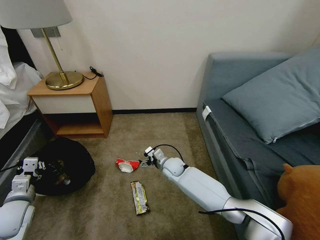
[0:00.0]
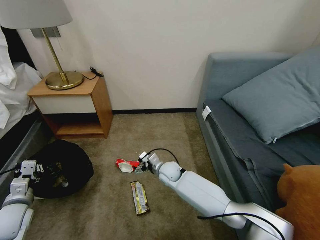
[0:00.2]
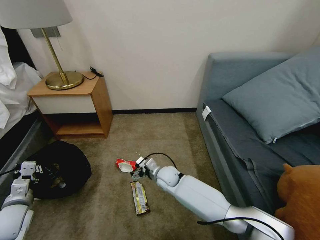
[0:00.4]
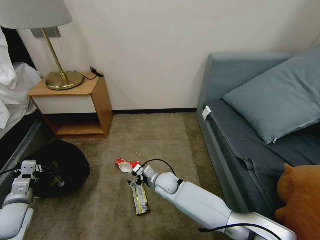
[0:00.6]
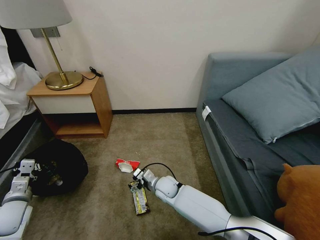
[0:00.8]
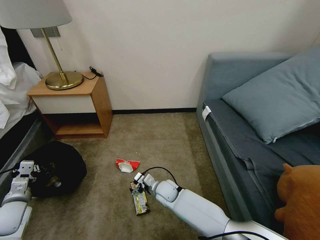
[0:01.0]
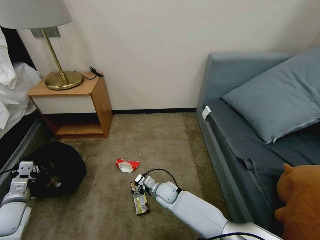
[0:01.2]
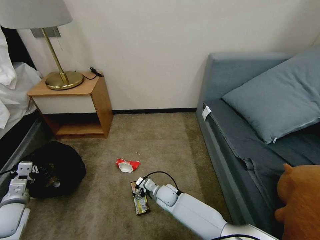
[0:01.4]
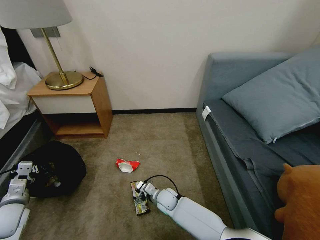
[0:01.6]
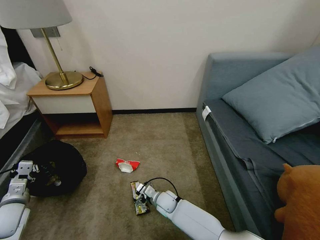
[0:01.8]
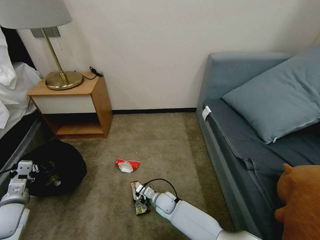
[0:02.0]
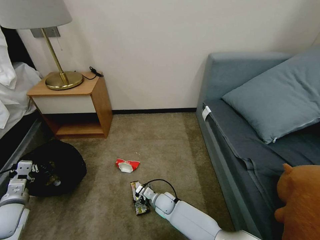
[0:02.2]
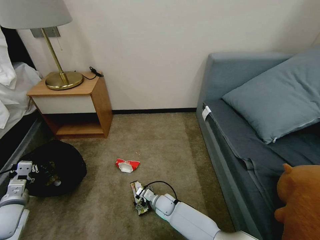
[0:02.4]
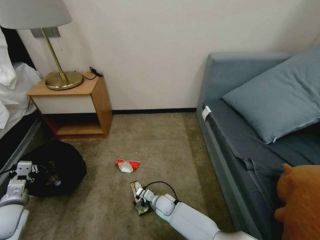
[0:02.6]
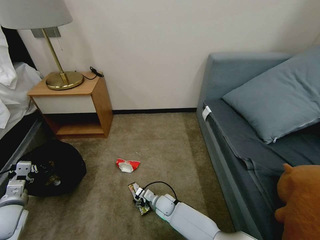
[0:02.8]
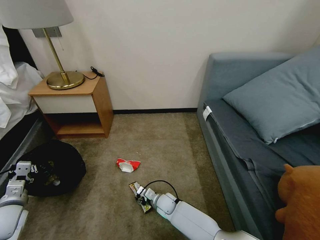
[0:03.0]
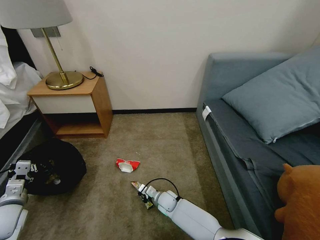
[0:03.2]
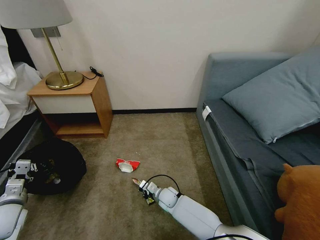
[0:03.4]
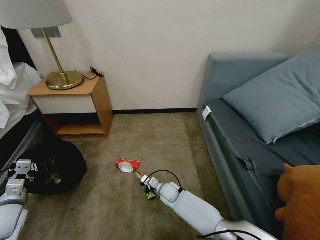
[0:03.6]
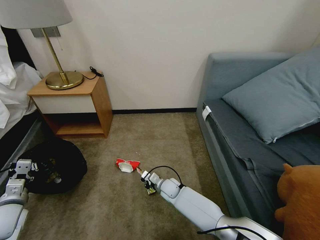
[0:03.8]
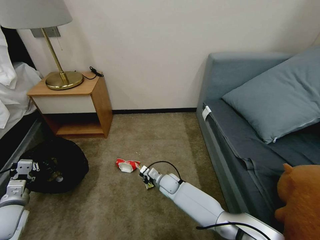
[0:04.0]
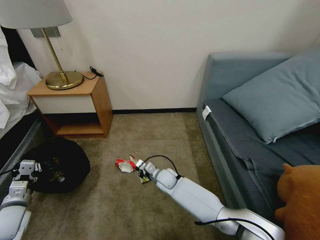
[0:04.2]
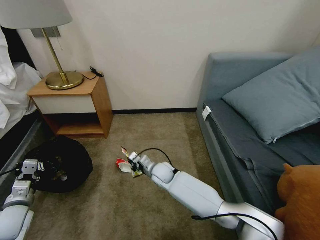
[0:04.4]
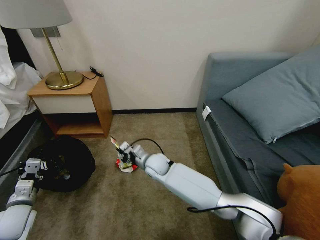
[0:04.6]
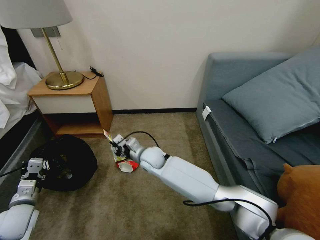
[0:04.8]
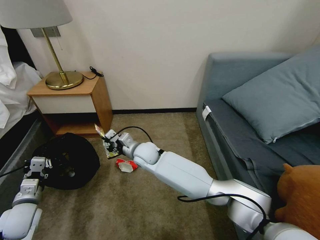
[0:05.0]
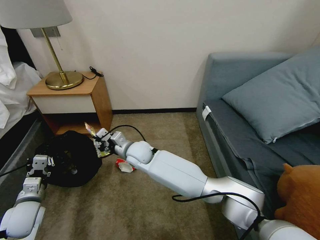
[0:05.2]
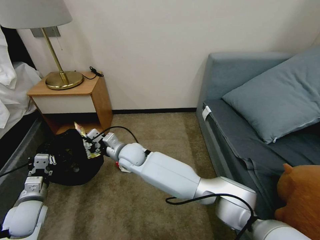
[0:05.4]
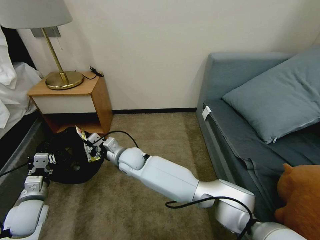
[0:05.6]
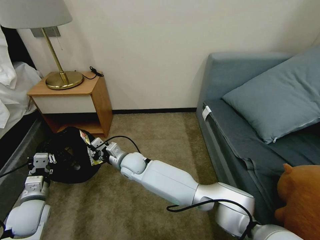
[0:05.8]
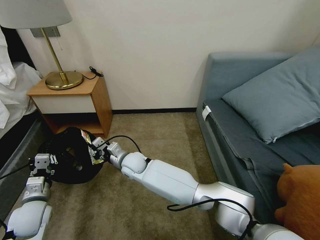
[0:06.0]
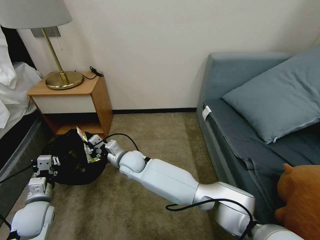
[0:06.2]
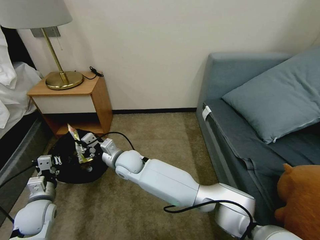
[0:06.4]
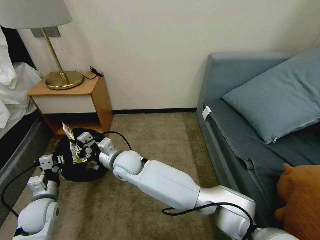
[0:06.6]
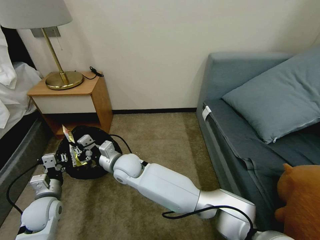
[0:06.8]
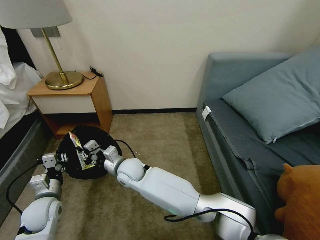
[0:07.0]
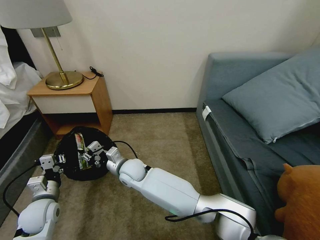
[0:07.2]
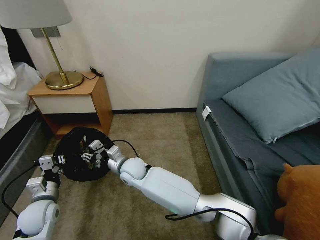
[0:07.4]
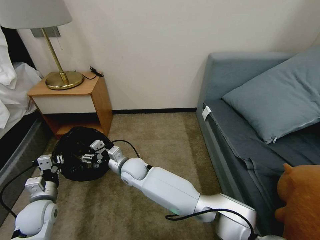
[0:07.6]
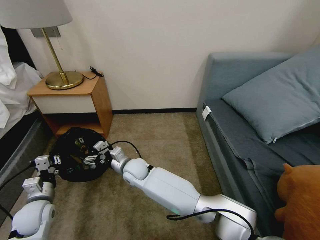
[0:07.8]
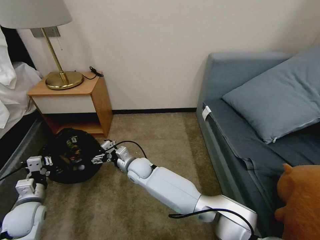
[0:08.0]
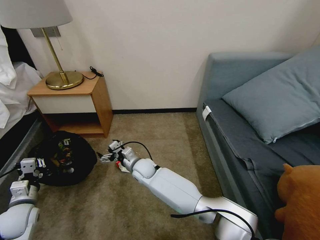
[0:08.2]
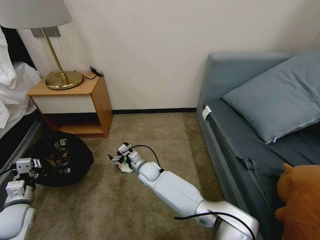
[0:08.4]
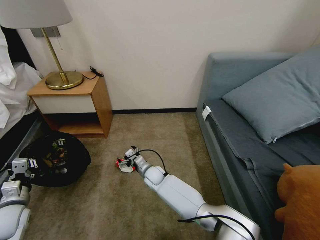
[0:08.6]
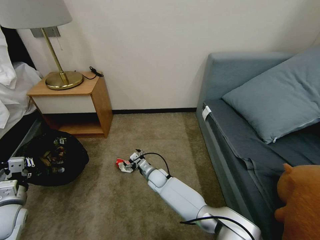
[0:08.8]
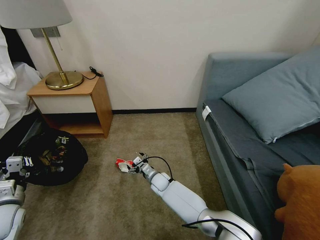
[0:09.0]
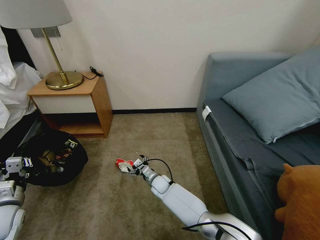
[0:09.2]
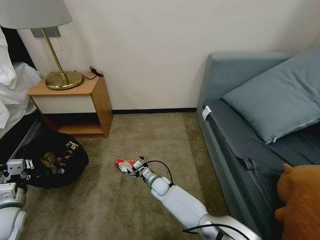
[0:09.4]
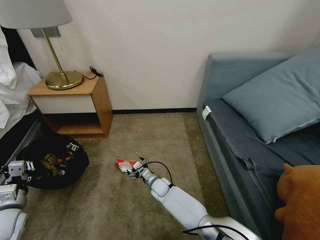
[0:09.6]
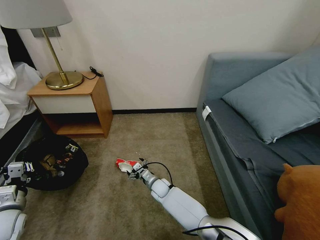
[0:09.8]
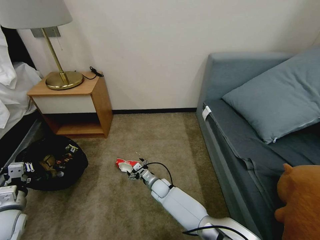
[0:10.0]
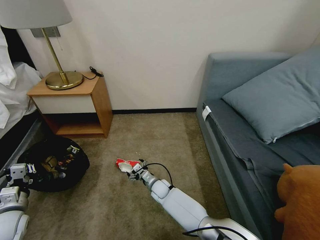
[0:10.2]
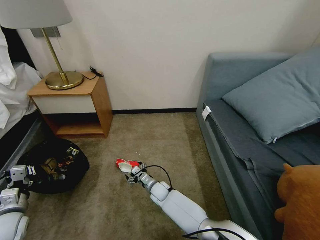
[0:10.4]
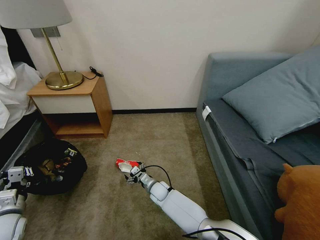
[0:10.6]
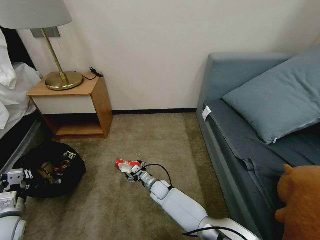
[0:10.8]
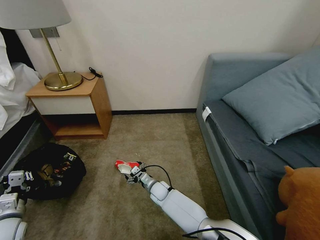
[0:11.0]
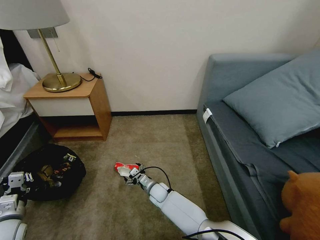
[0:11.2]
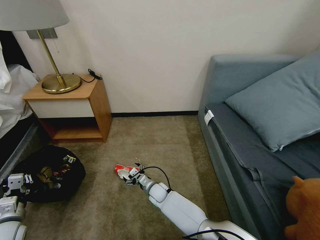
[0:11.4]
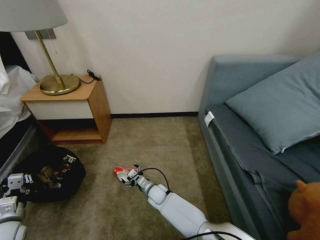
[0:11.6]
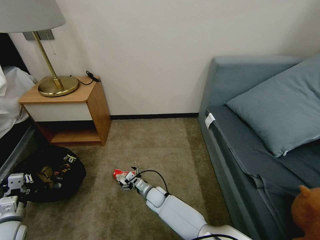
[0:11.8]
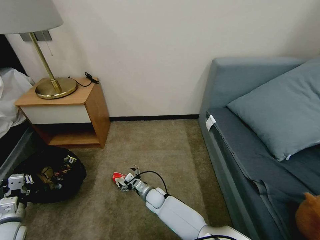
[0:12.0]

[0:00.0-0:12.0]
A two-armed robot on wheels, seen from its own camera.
Task of the whole recording: Pick up the trash bin, then pick up the garbage on the floor and place it into the trash bin.
0:00.0 to 0:01.6: The right gripper moves backward and downward, approximately 15 cm.
0:01.6 to 0:03.0: The right gripper closes.
0:03.0 to 0:04.4: The right gripper moves upward and forward, about 15 cm, and closes its fingers.
0:04.4 to 0:06.0: The right gripper is displaced to the left and upward by approximately 15 cm. The left gripper goes roughly 5 cm to the right.
0:06.0 to 0:07.6: The right gripper opens up.
0:07.6 to 0:09.0: The right gripper moves downward and to the right, roughly 20 cm. Meanwhile the left gripper moves to the left, roughly 10 cm.
0:09.0 to 0:10.4: The grippers move only a little.

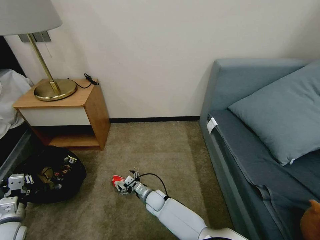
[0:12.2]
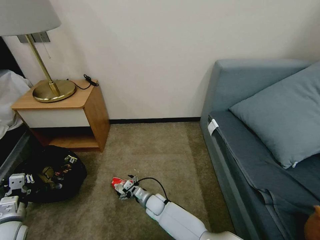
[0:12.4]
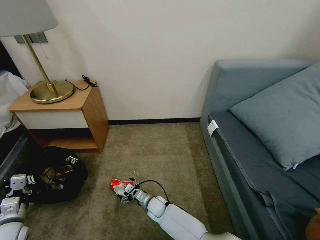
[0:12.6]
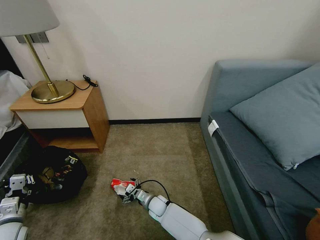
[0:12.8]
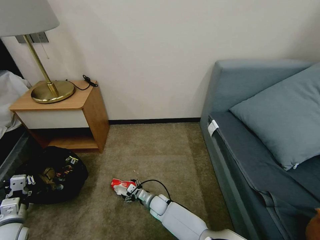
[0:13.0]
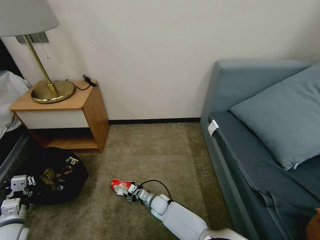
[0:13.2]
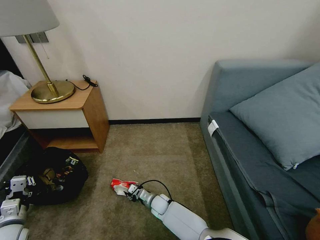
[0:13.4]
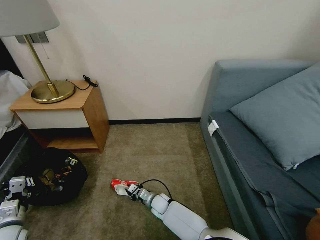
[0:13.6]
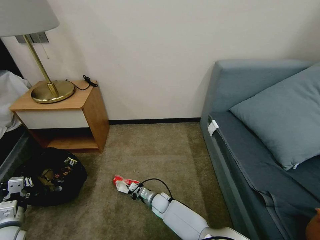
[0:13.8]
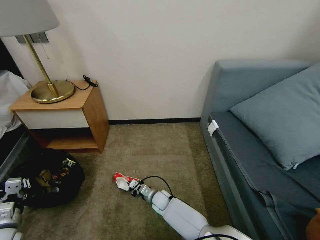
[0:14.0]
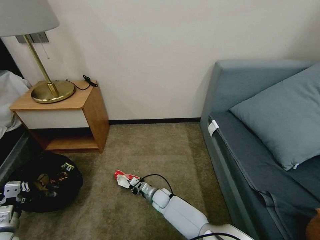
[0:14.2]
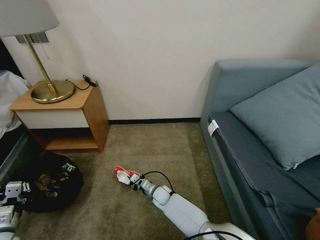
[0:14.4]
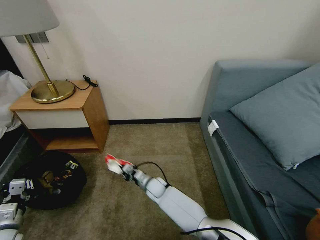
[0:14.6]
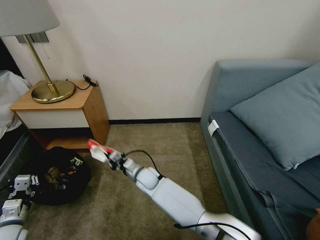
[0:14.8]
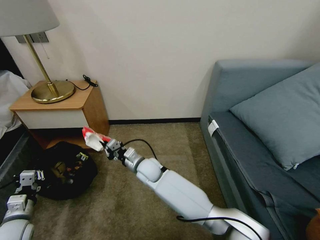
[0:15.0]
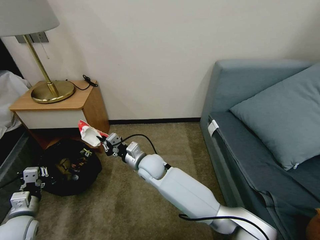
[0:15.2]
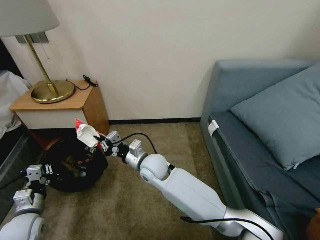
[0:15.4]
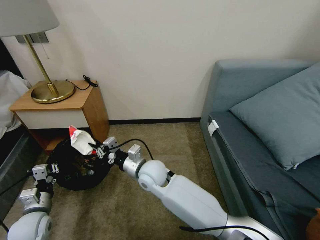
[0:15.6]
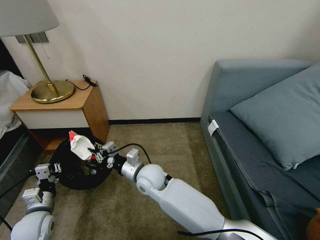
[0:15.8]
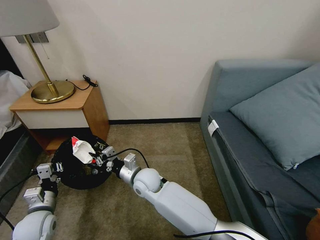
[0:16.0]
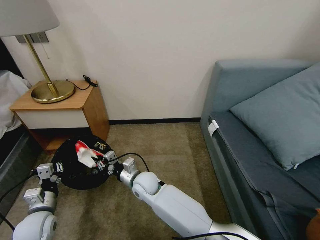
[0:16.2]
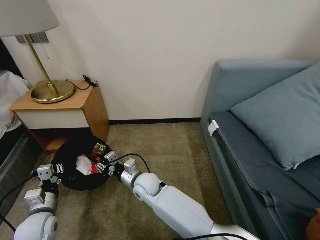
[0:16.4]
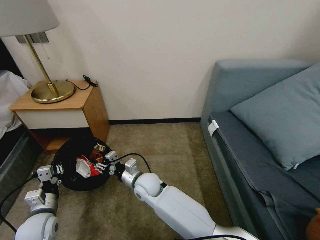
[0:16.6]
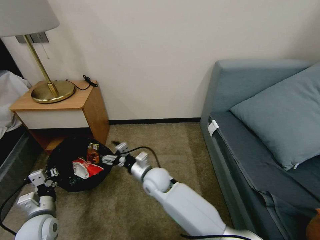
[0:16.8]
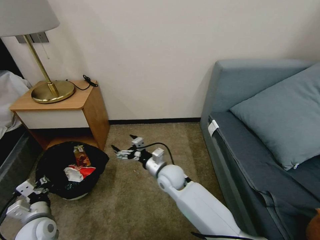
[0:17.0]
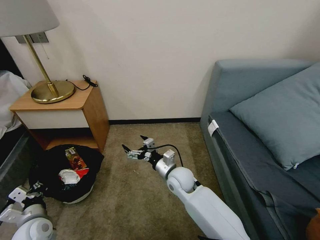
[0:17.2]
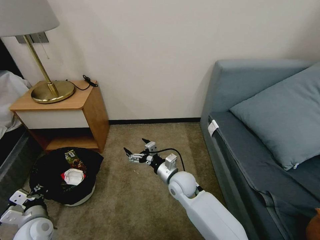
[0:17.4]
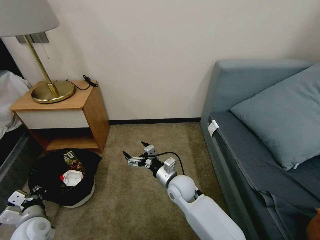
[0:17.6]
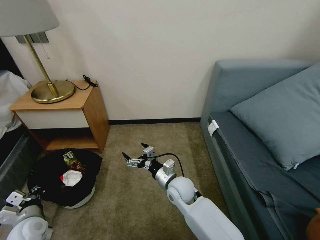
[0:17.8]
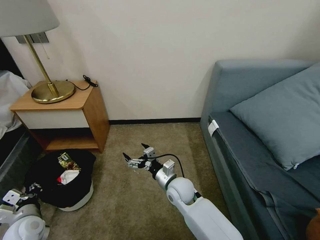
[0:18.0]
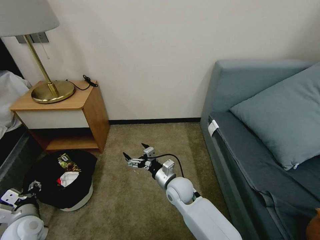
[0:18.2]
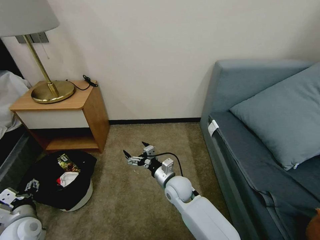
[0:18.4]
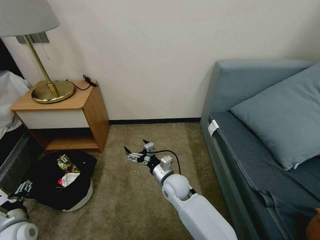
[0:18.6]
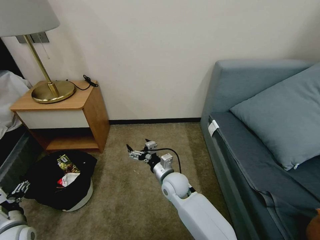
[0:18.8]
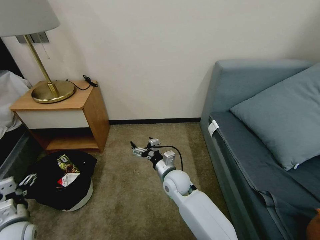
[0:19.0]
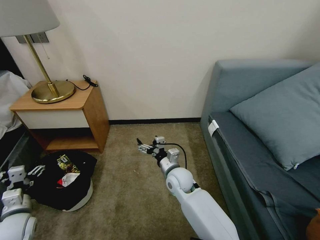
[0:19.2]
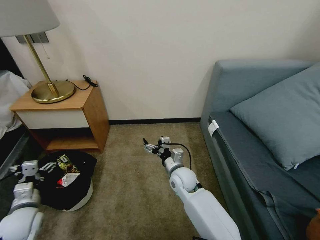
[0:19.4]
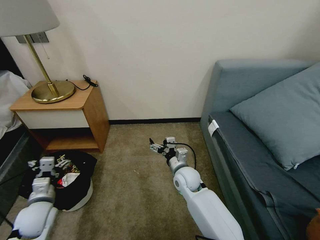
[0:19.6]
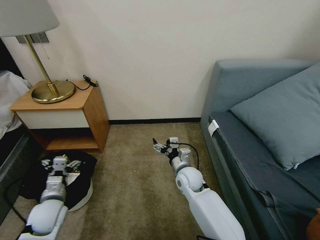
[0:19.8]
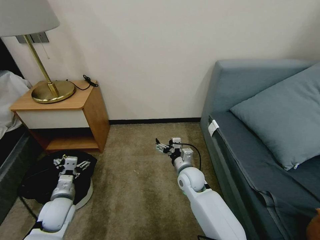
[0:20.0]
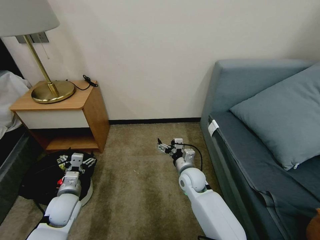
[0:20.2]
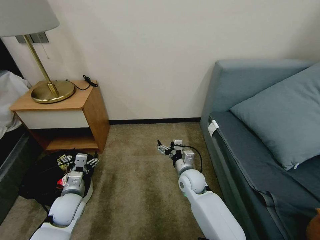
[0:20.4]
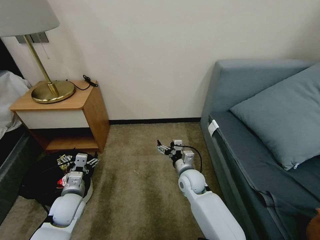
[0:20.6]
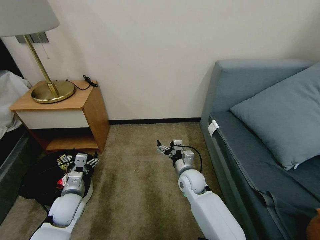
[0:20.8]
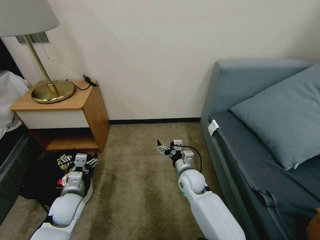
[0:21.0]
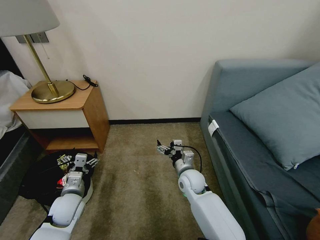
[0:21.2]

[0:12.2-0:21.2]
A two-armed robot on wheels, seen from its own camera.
Task of the whole recording: Pick up the trash bin, then pick up the garbage on the floor and place it into the trash bin.
0:12.2 to 0:13.8: The right gripper closes its fingers.
0:13.8 to 0:15.2: The right gripper shifts about 25 cm upward.
0:15.2 to 0:16.6: The right gripper shifts approximately 5 cm downward, and opens up, while the left gripper moves to the right, some 5 cm.
0:16.6 to 0:18.2: The right gripper heads to the right, covering roughly 10 cm, and opens; the left gripper opens its fingers.
0:18.2 to 0:19.8: The left gripper moves to the right, some 5 cm, and opens, while the right gripper ends up about 5 cm from where it was.
0:19.8 to 0:21.2: The left gripper ends up roughly 5 cm from where it was.

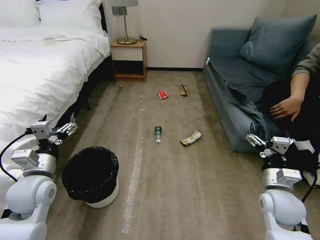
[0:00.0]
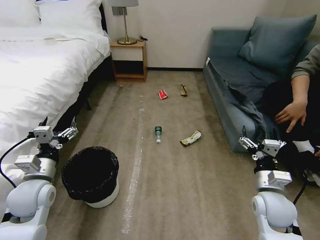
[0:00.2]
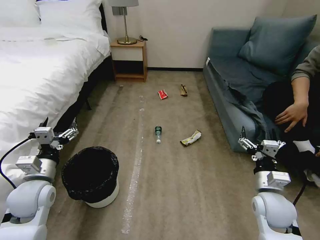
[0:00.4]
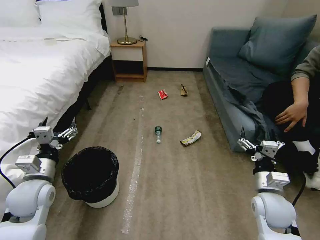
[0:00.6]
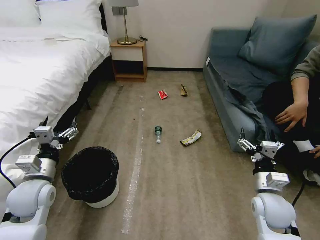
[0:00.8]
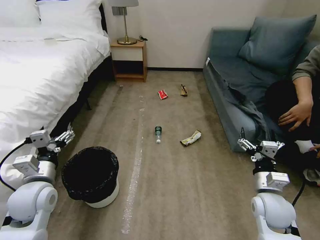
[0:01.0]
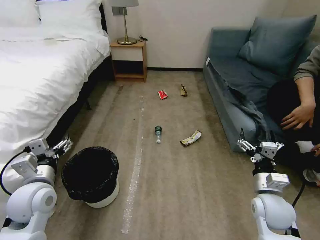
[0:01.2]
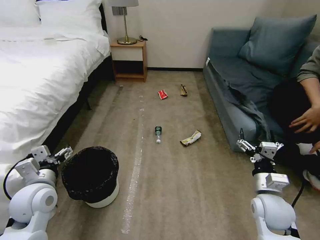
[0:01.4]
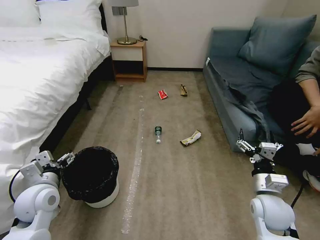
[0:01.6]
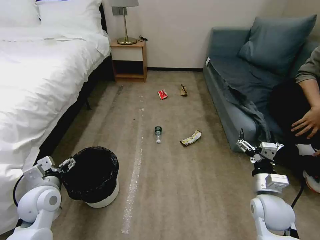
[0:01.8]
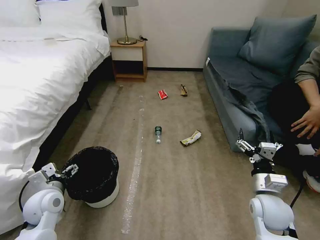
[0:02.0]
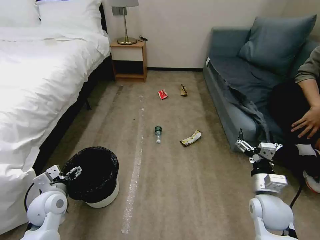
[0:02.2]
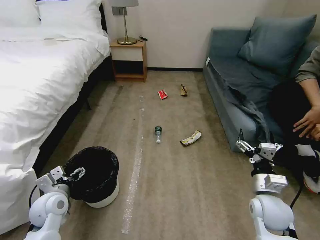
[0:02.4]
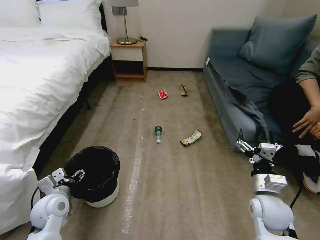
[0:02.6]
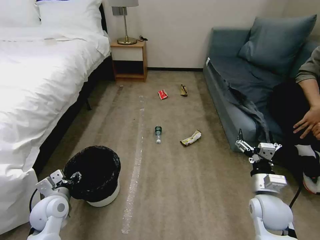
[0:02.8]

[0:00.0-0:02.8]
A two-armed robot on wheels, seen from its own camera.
Task of the whole recording: Pick up the trash bin, then pick up the garbage on the floor and place it into the trash bin.
0:01.4 to 0:02.8: The left gripper is displaced downward by some 10 cm, and closes.
